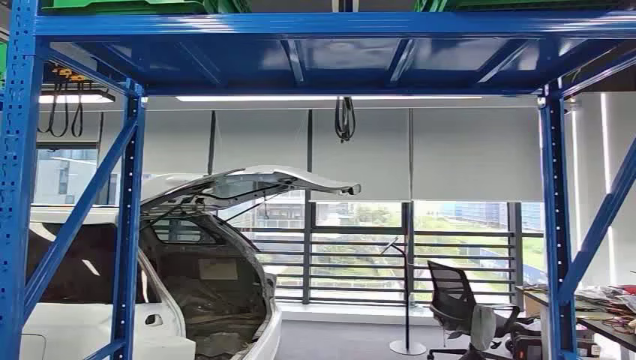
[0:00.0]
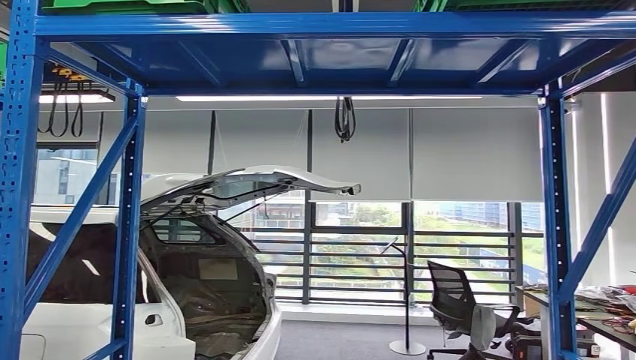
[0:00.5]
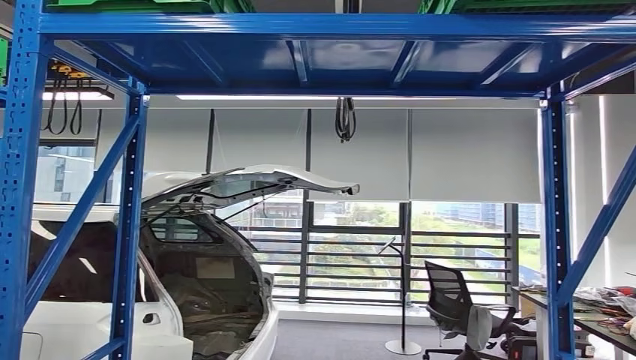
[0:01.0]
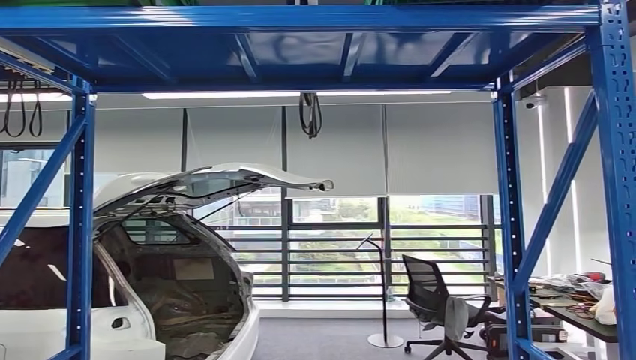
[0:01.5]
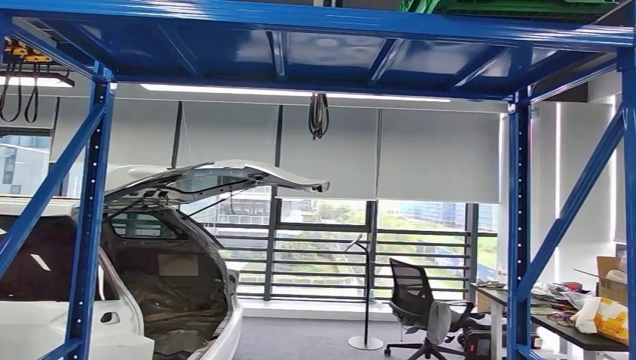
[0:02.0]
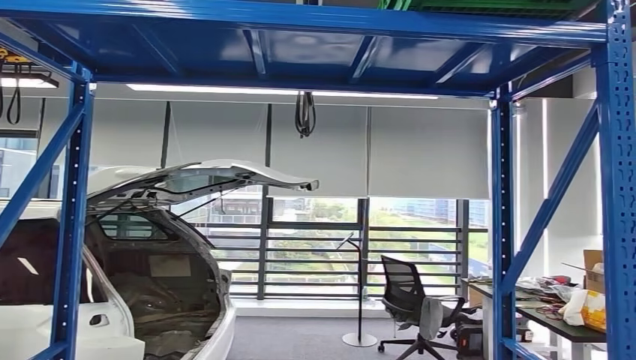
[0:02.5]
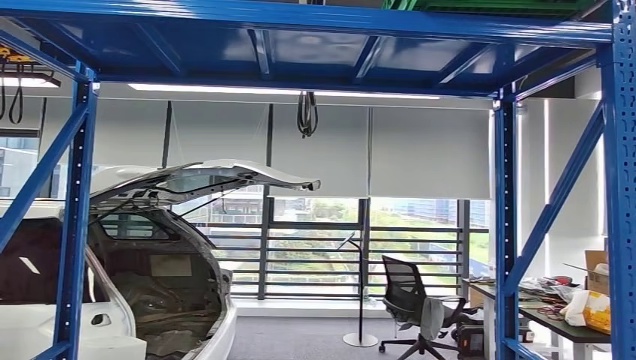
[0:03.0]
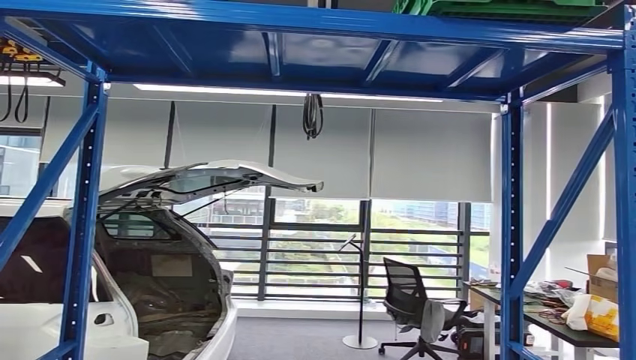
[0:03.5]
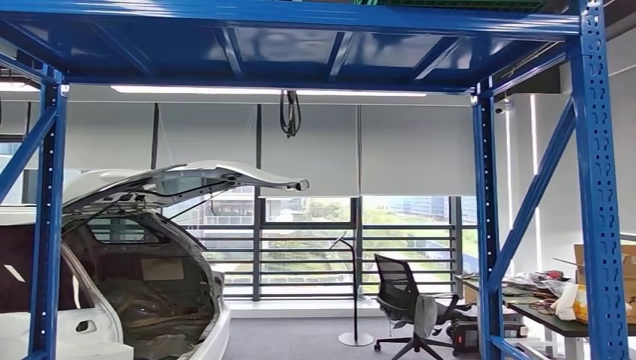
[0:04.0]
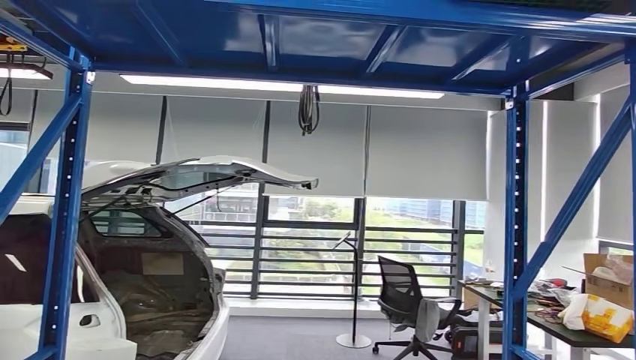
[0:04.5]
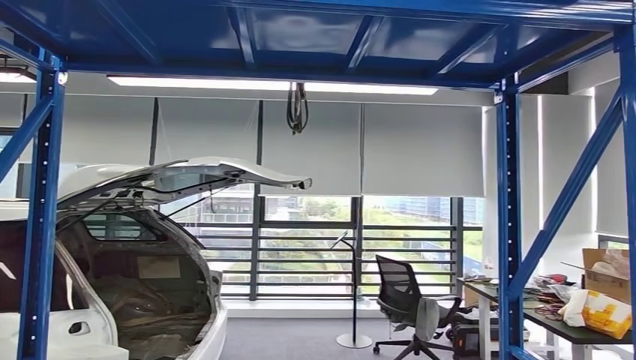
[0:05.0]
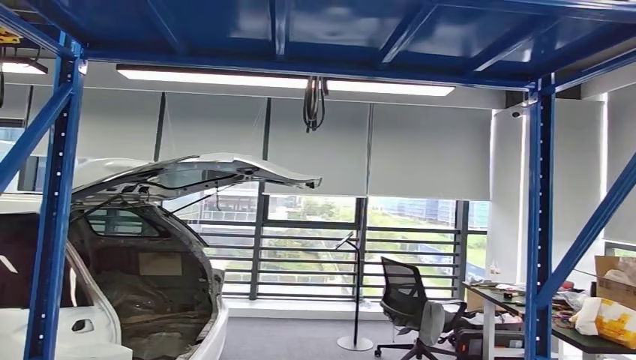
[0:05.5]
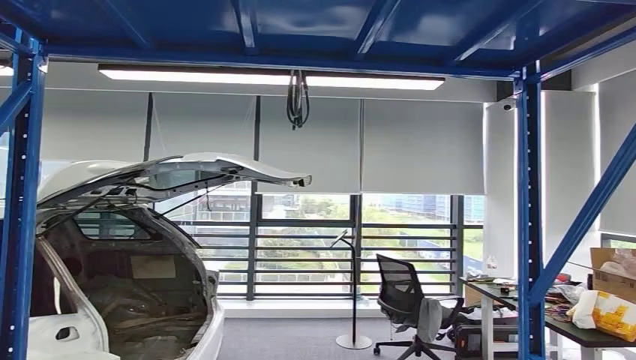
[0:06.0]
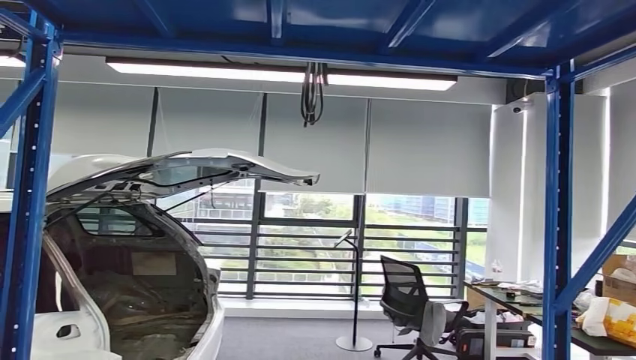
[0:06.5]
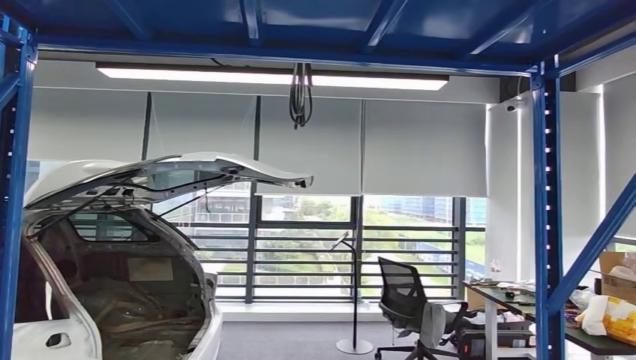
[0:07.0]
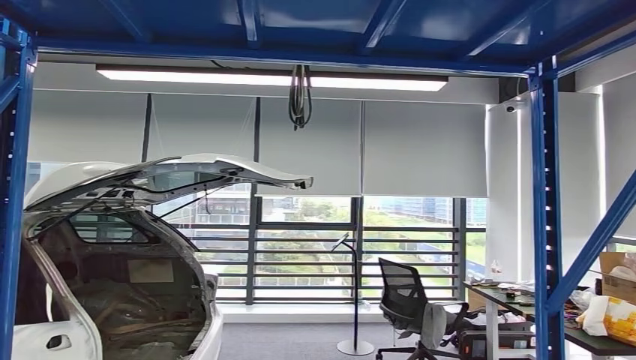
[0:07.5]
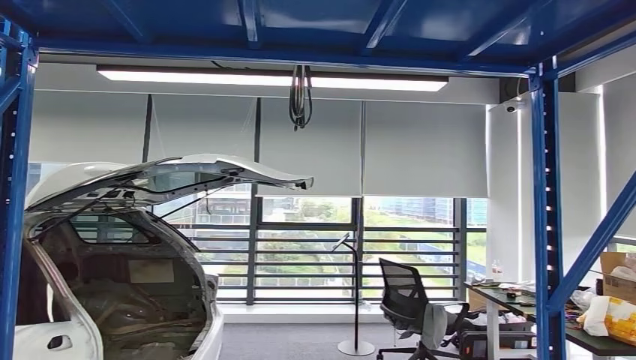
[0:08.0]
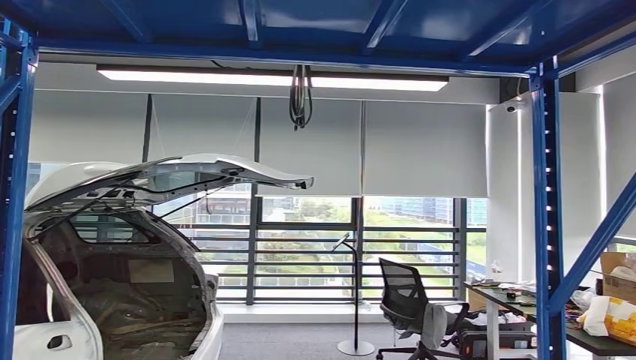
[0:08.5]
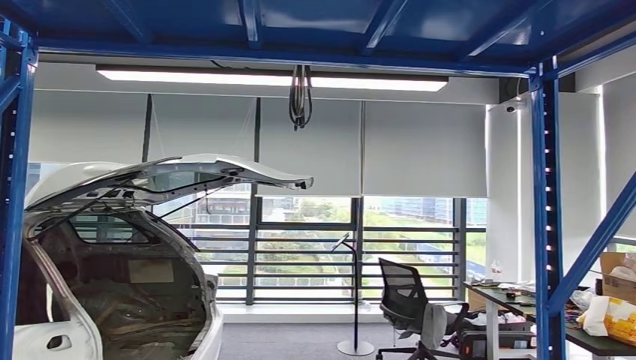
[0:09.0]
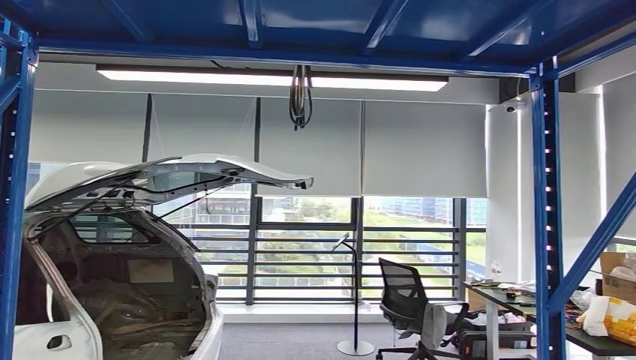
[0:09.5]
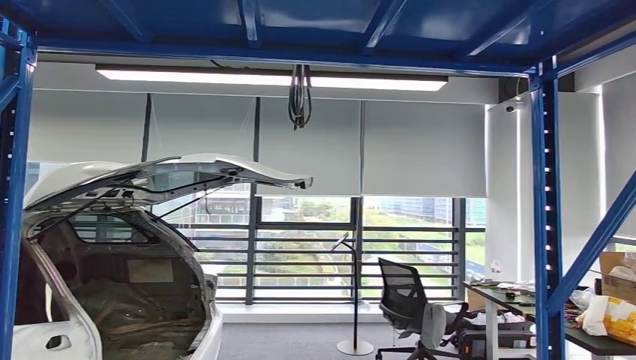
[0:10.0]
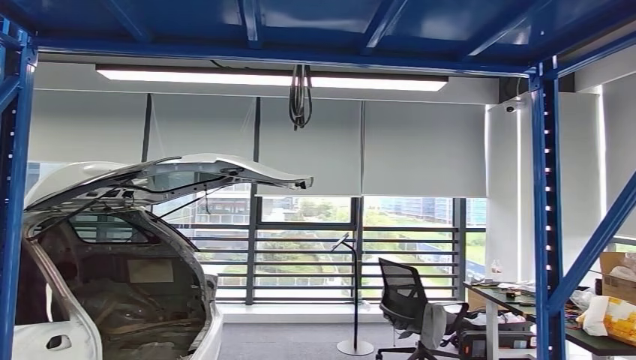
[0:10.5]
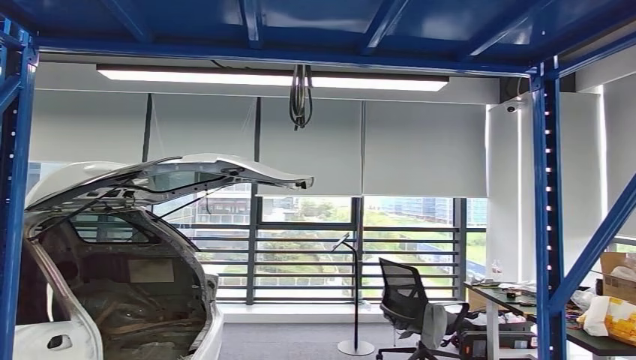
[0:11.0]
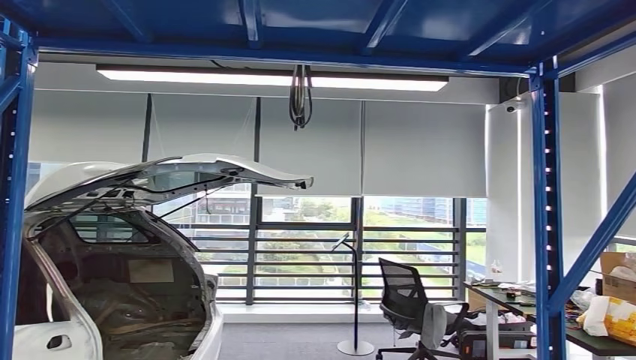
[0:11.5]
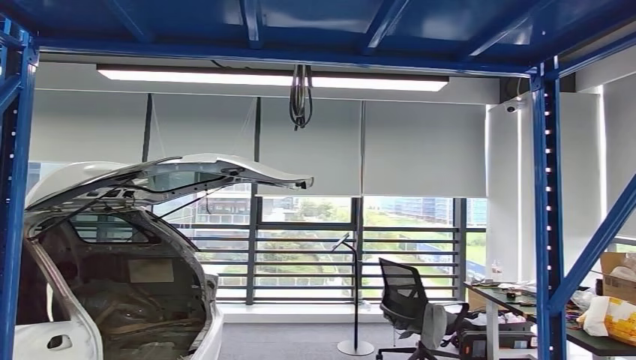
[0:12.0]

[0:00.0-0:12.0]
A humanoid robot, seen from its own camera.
8.0 to 10.0 s: The right hand travels forward and to the left by about 10 cm.
10.0 to 12.0 s: The right hand heads to the left, covering some 10 cm.

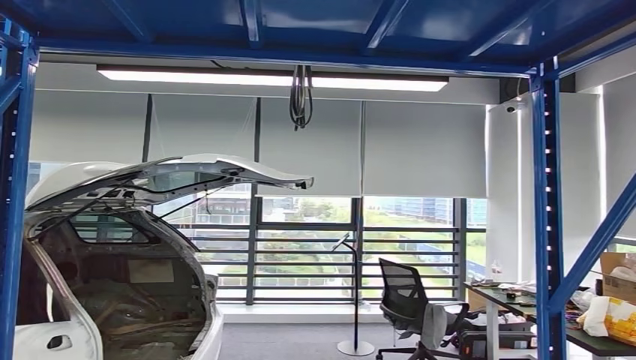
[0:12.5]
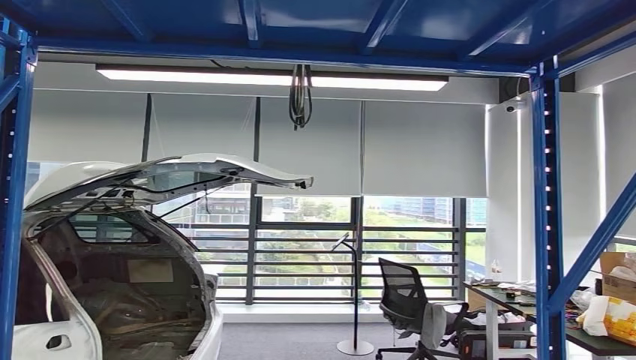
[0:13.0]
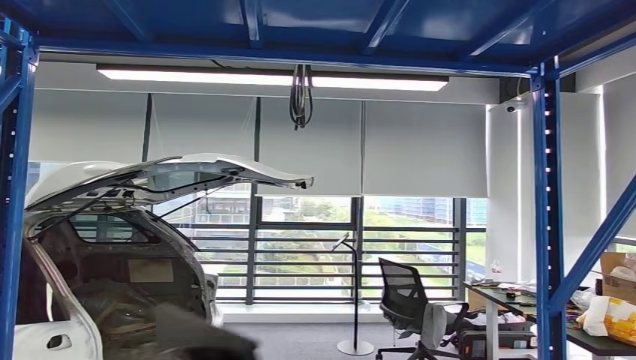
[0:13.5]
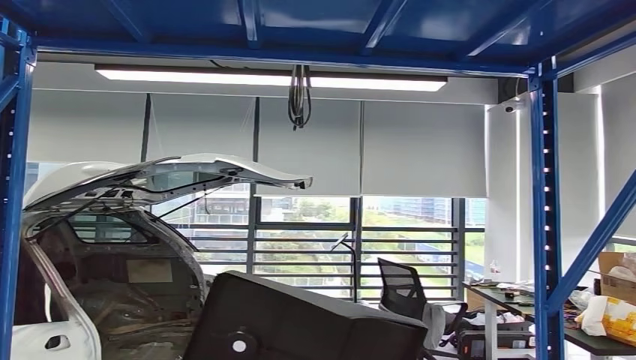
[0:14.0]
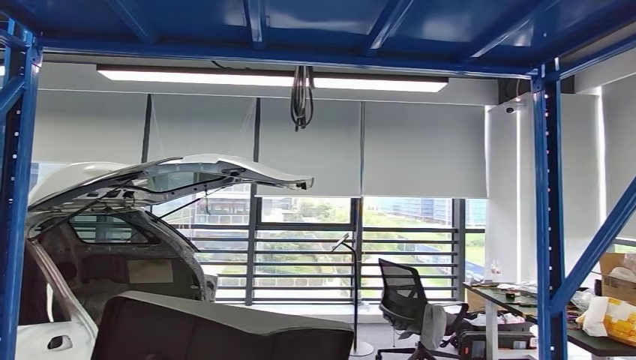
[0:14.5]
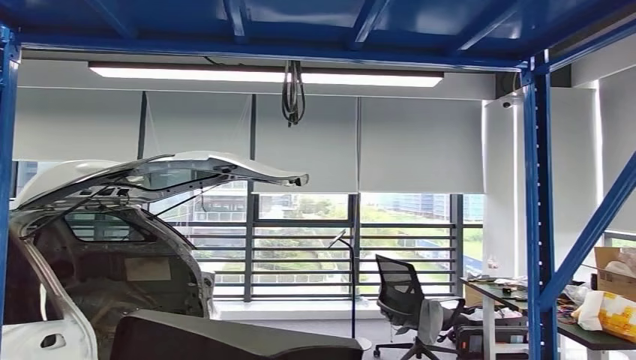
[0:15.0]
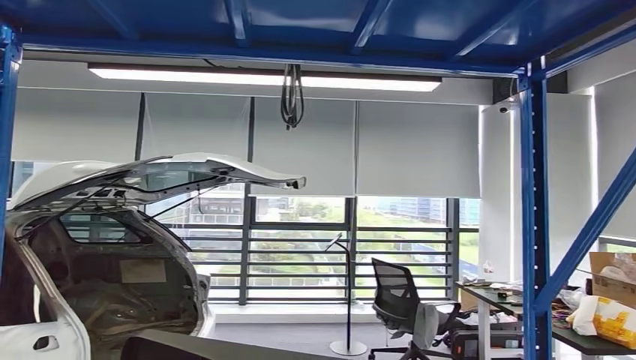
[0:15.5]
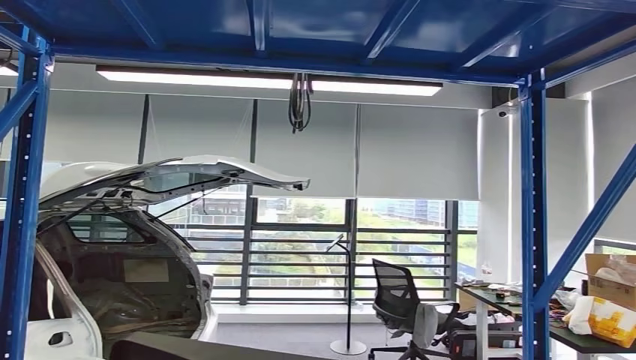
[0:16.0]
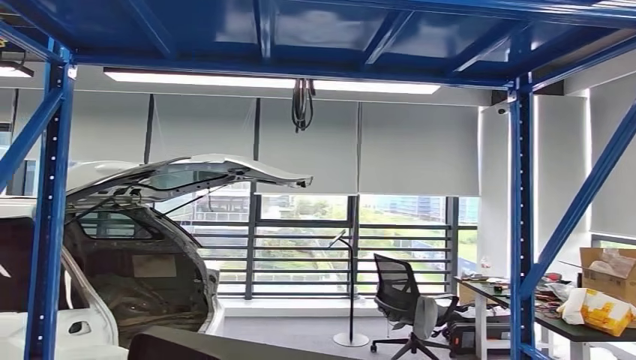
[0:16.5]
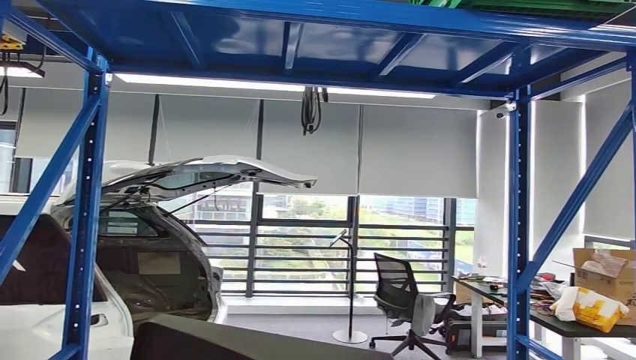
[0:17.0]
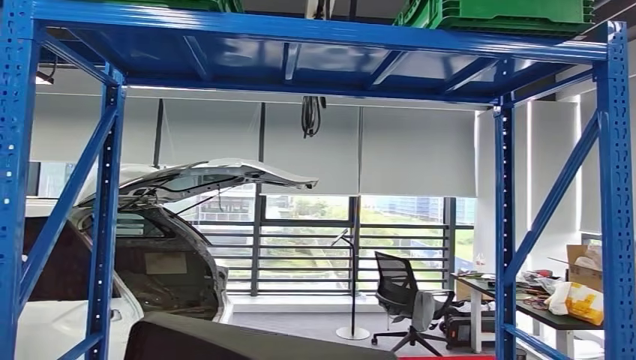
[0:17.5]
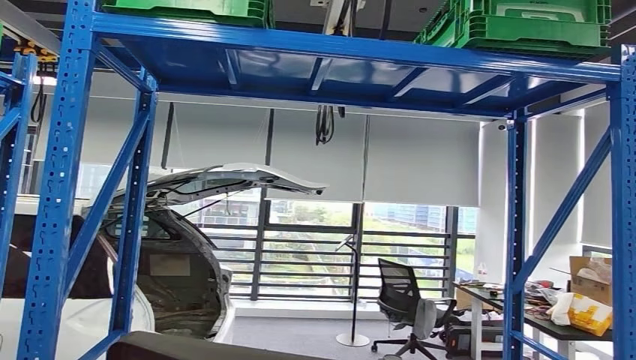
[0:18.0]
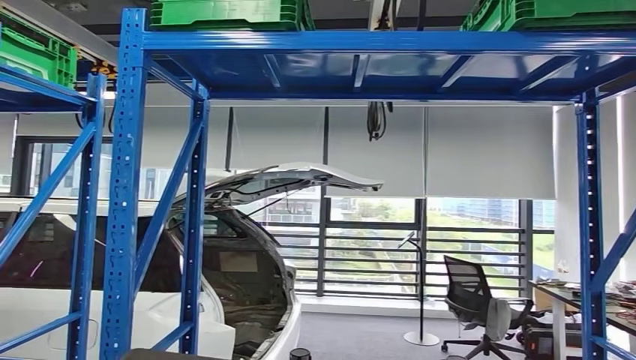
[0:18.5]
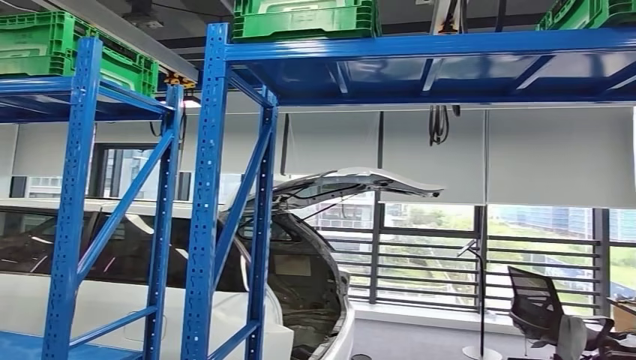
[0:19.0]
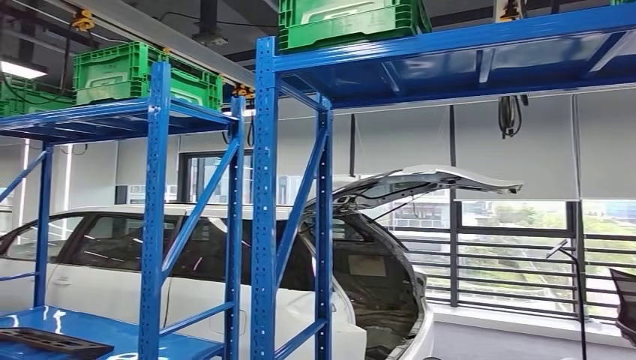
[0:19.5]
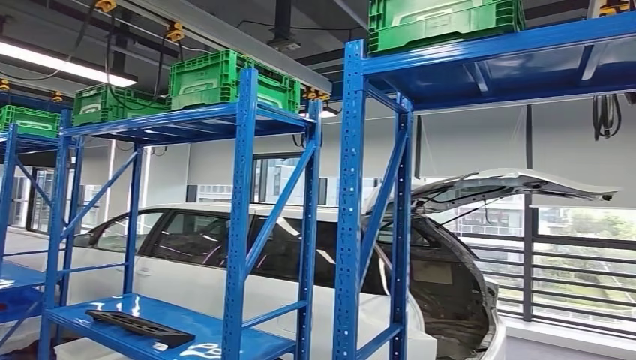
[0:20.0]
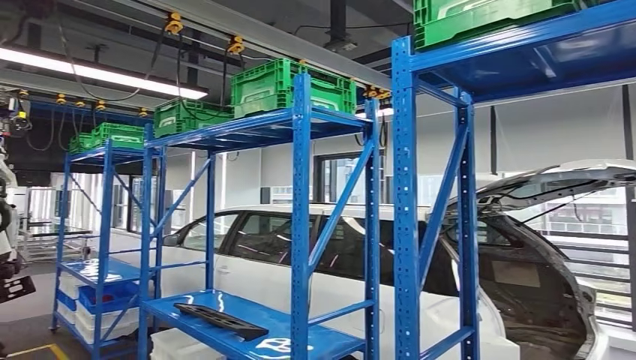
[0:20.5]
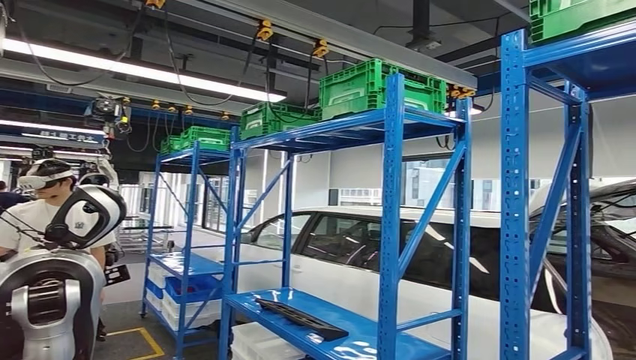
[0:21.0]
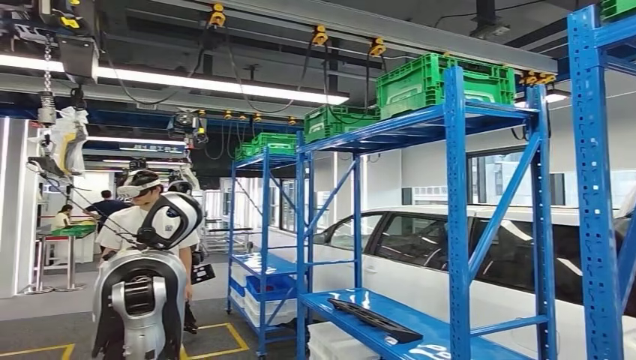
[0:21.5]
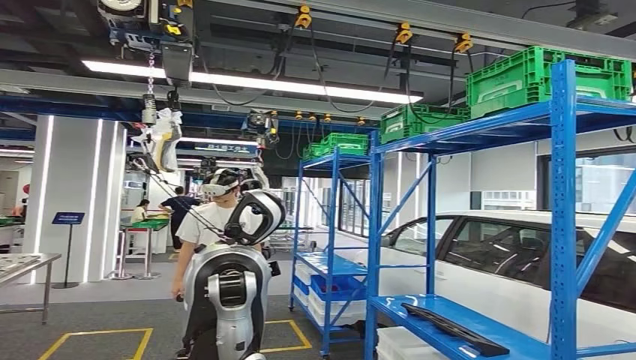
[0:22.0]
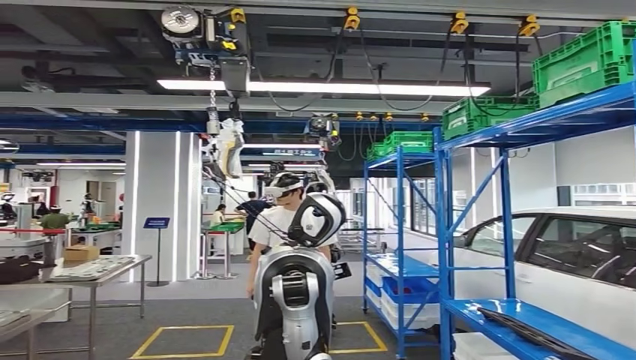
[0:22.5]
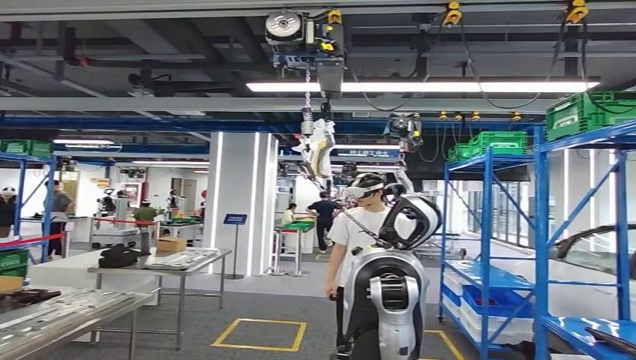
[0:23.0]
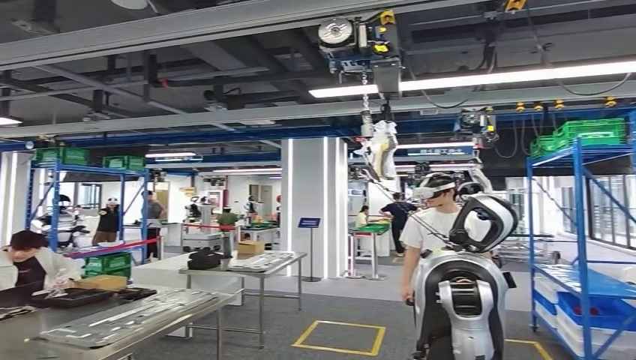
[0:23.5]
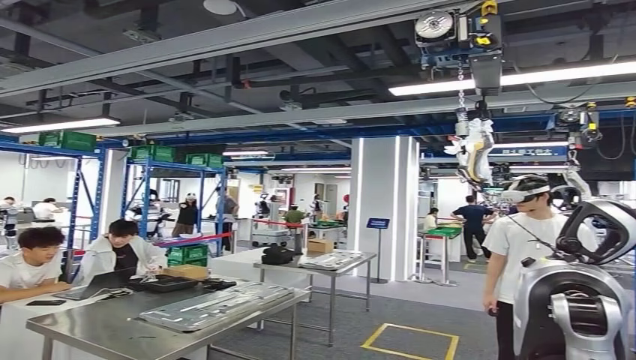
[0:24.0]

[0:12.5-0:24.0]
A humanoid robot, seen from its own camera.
12.5 to 14.5 s: The right hand heads backward, upward and to the left, covering about 20 cm.
